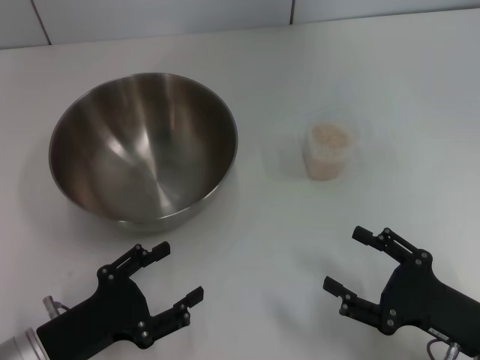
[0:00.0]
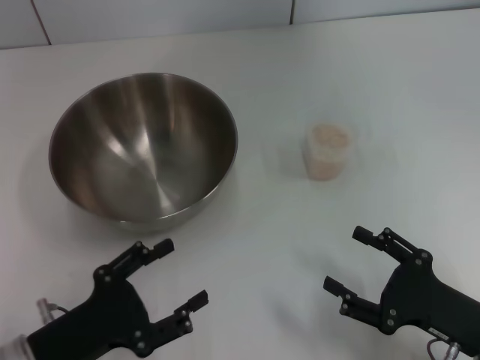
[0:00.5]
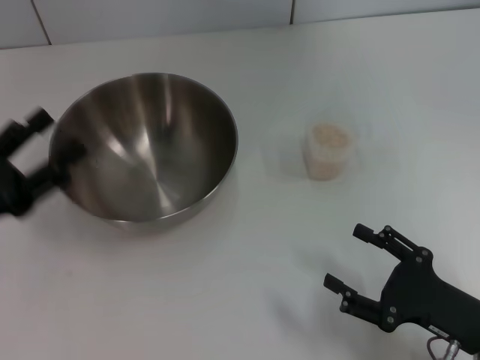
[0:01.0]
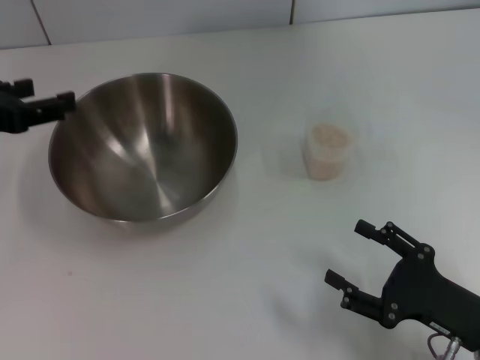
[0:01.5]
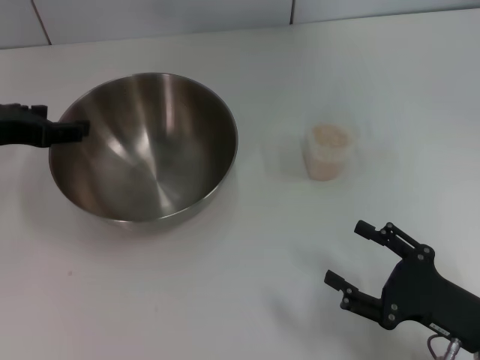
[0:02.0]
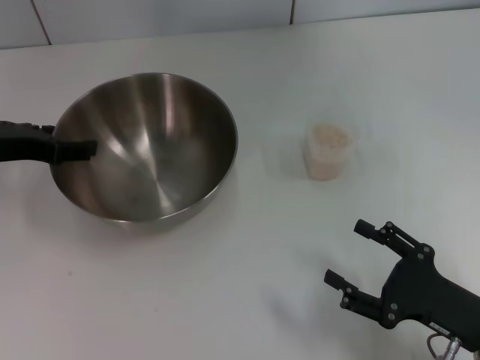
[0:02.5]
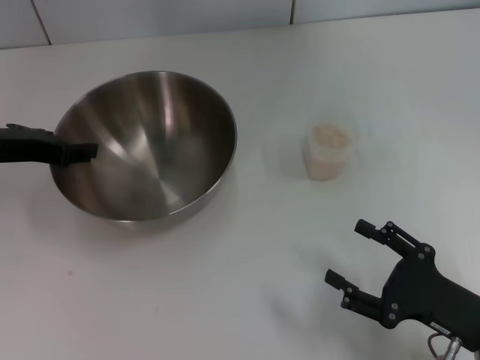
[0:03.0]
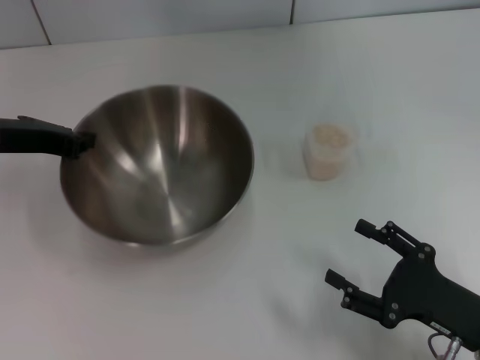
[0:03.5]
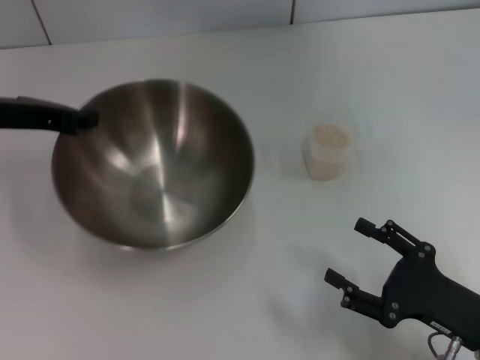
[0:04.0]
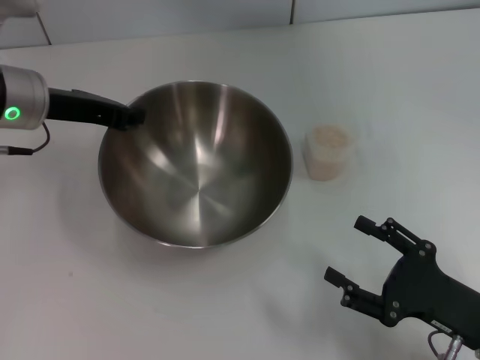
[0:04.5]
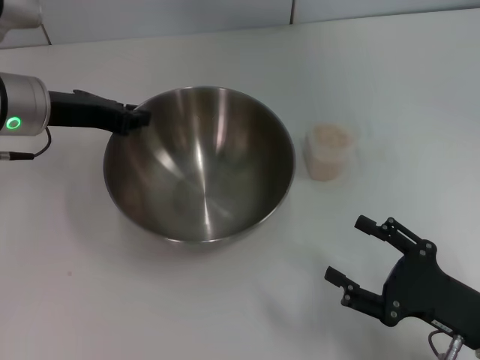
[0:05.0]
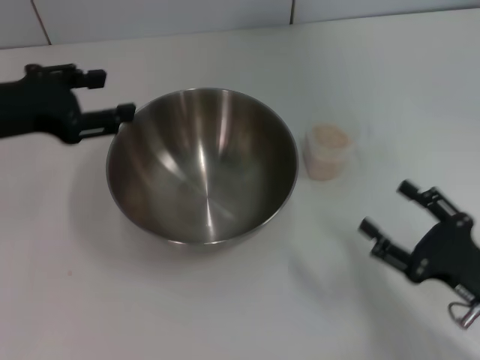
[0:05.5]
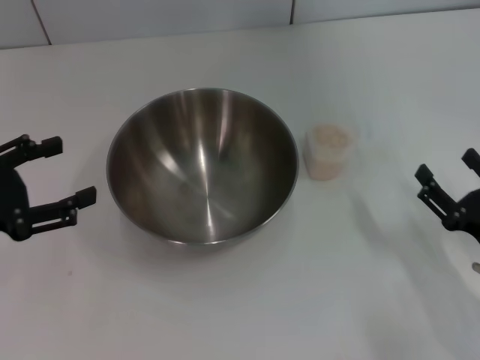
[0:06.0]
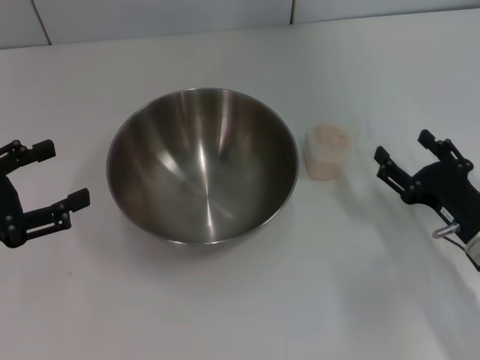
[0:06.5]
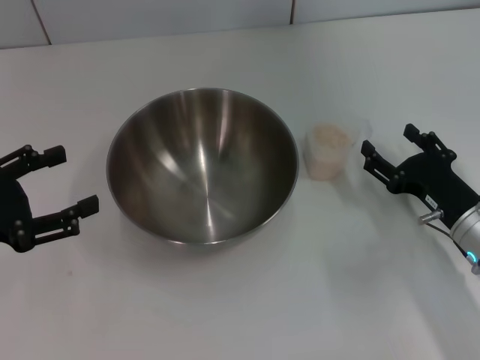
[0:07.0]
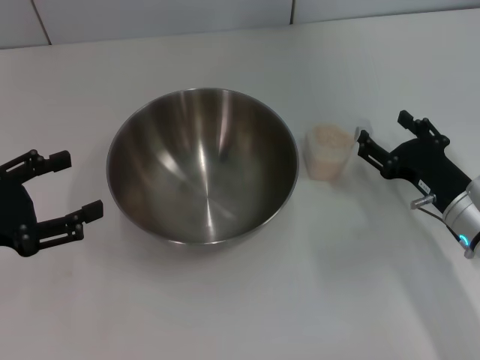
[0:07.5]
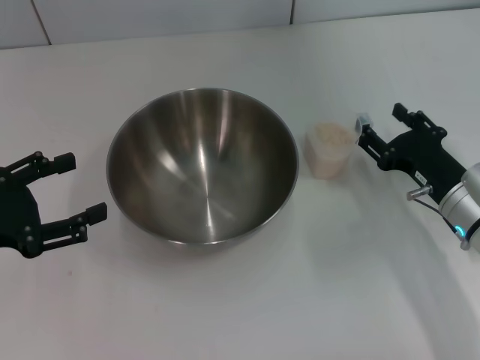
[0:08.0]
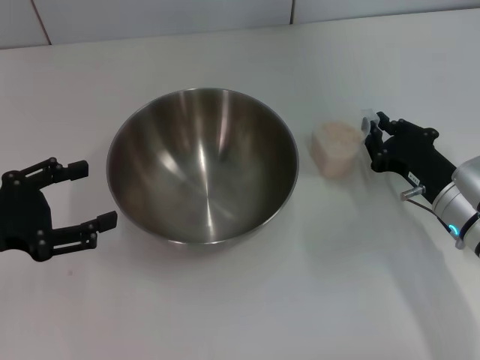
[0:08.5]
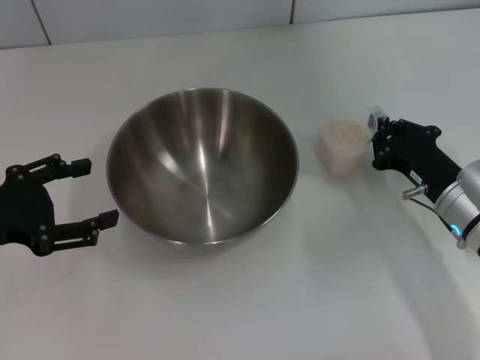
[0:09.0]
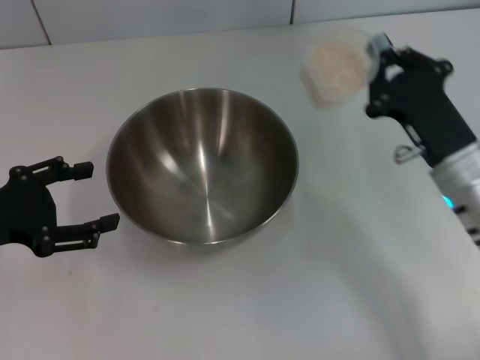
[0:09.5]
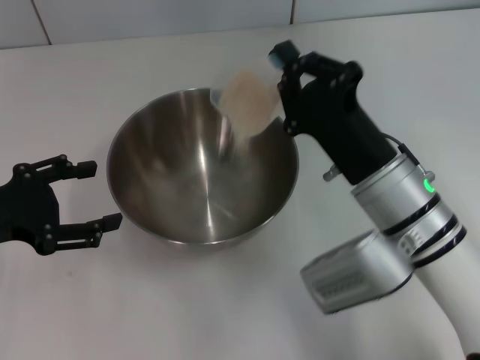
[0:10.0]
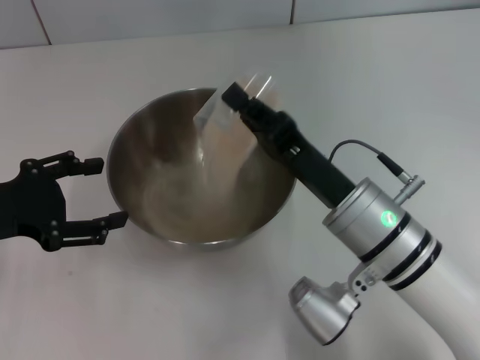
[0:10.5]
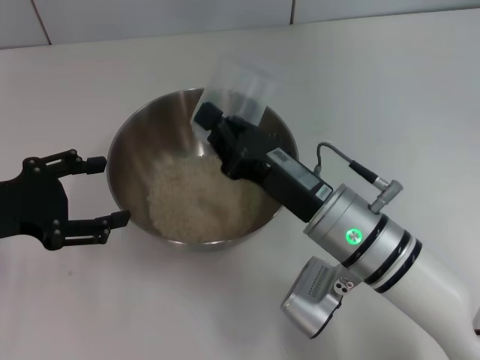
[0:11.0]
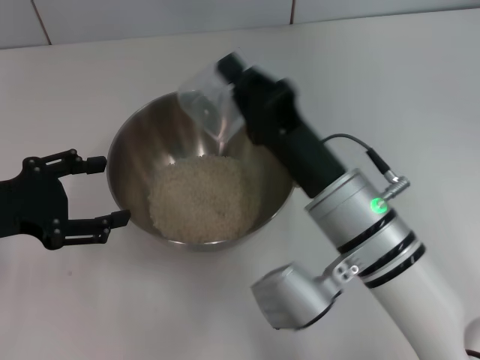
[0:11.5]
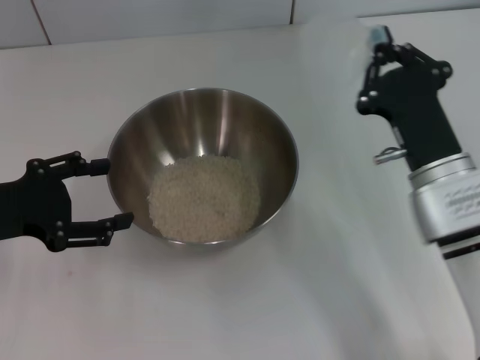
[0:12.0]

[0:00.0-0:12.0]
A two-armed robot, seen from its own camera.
Task of the whole recording: Place the bowl in the middle of the table with one hand and pour the rice from the grain cup into it with the other hand.
Step, 0:00.0 to 0:03.5: Pick up the bowl with the left gripper.
Step, 0:04.5 to 0:05.0: Place the bowl in the center of view with the left gripper.
Step, 0:05.5 to 0:09.0: Pick up the cup with rice in it with the right gripper.
Step, 0:09.5 to 0:11.5: Pour the rice from the cup into the bowl with the right gripper.
0:00.0 to 0:02.0: The left gripper travels forward and upward by about 25 cm.
0:02.0 to 0:04.0: The left gripper closes its fingers.
0:04.0 to 0:06.0: The left gripper moves backward and to the left, approximately 15 cm, and opens its fingers.
0:06.0 to 0:08.0: The right gripper travels forward by approximately 10 cm.
0:08.0 to 0:10.0: The right gripper is displaced to the left and upward by approximately 15 cm, and closes up.

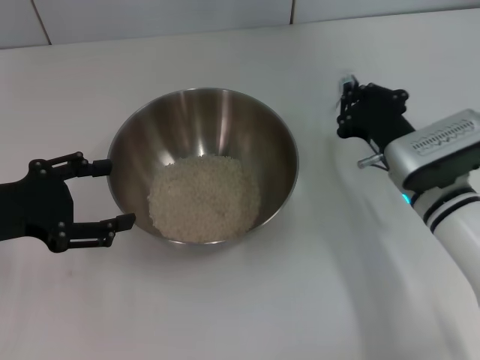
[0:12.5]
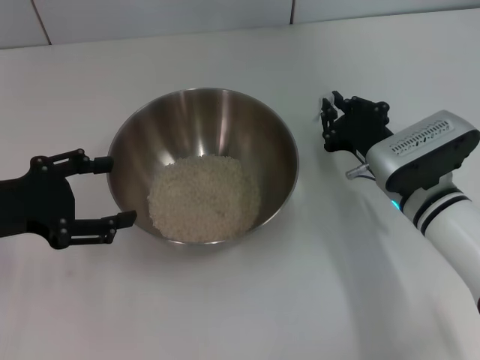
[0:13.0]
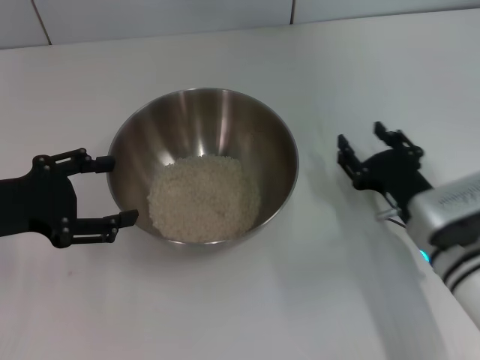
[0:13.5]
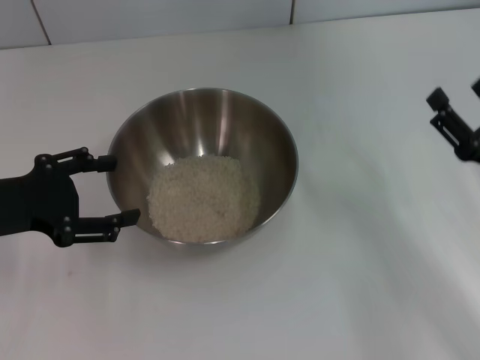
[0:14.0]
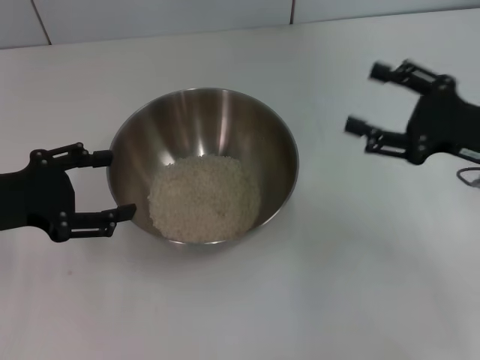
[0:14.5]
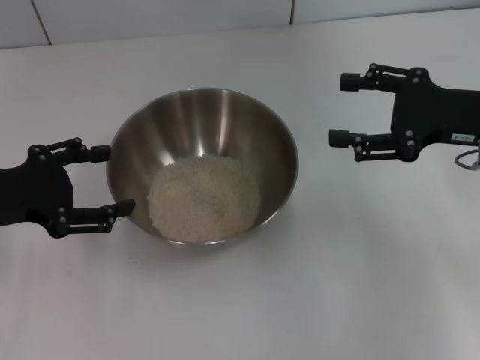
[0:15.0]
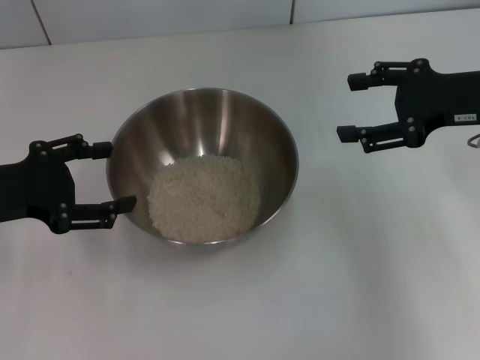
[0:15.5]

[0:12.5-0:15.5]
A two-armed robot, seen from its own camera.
Task of the whole recording: Place the bowl in the middle of the table with one hand and pour the rice from the grain cup into it with the other hand.
0:12.5 to 0:14.0: The right gripper is displaced to the right and backward by approximately 15 cm, and opens up.
0:14.0 to 0:15.5: The right gripper travels upward and forward by about 15 cm.

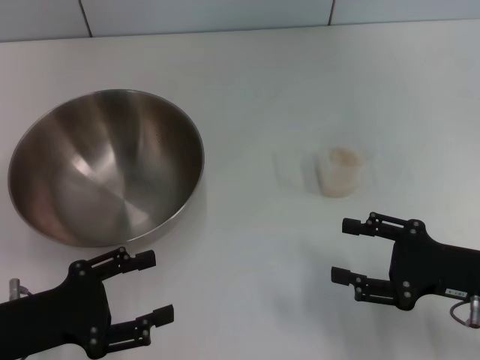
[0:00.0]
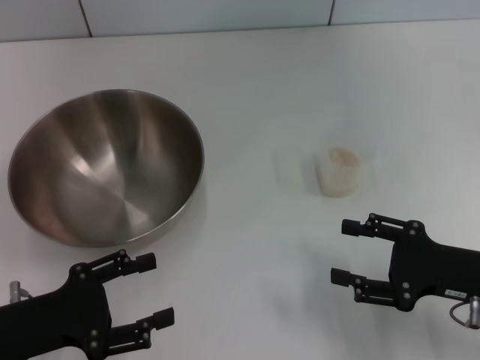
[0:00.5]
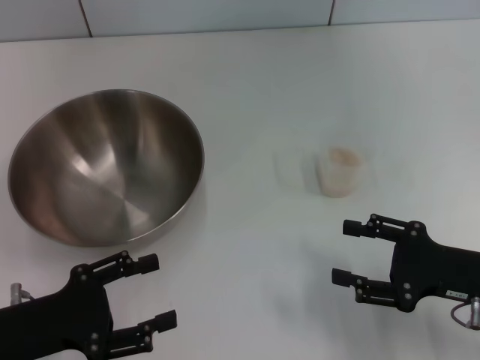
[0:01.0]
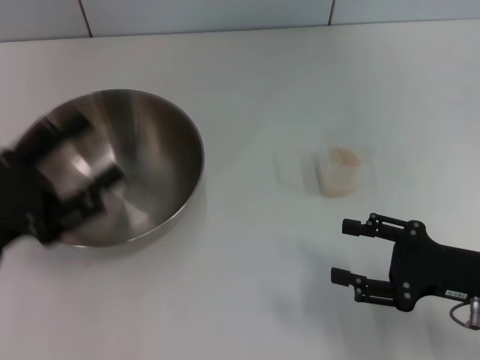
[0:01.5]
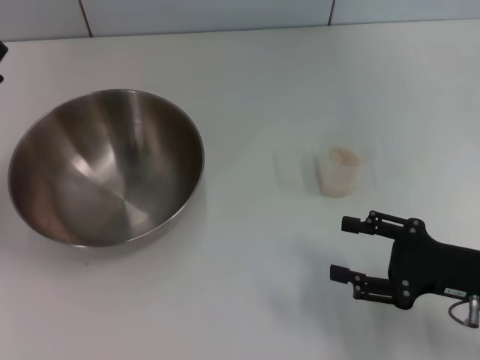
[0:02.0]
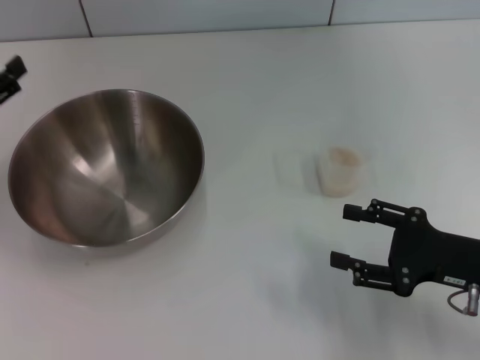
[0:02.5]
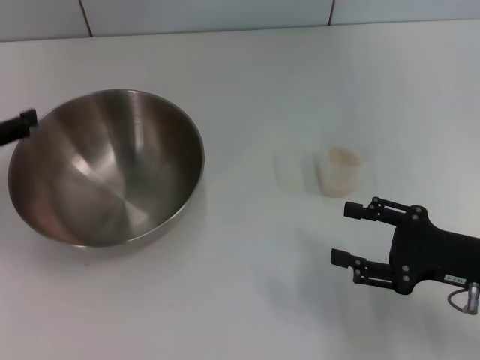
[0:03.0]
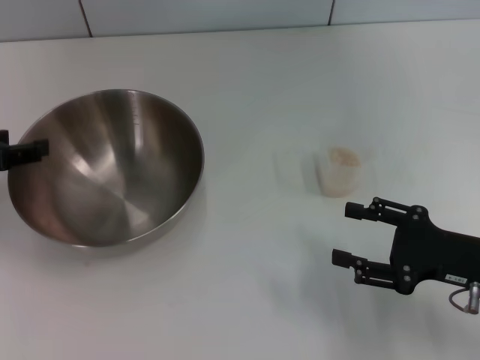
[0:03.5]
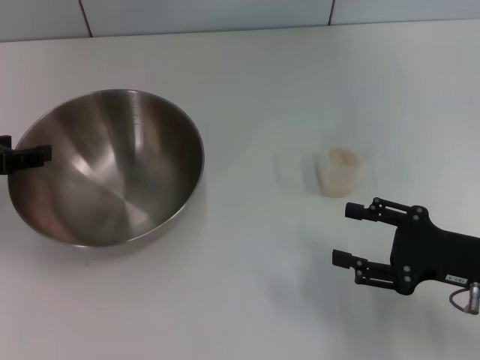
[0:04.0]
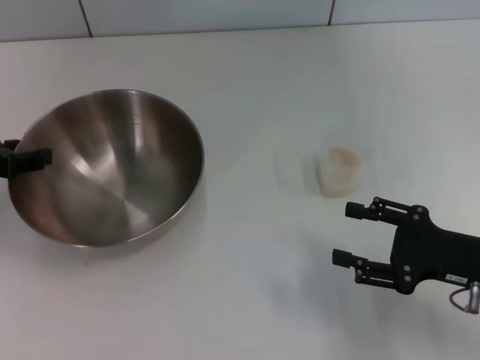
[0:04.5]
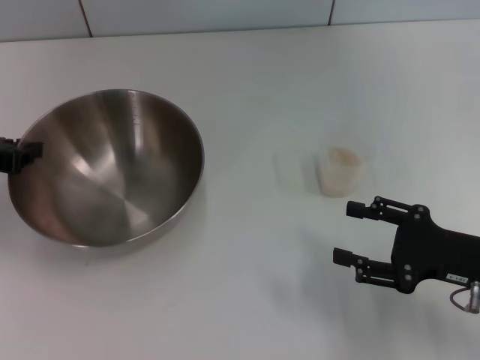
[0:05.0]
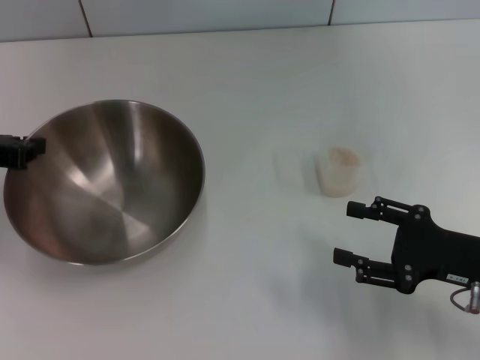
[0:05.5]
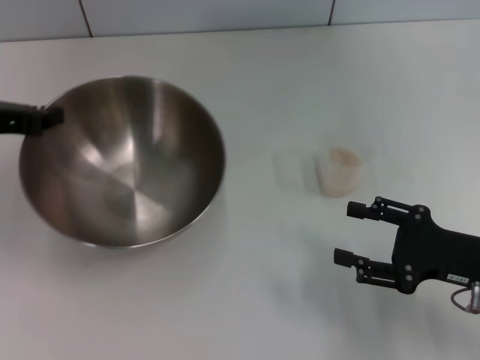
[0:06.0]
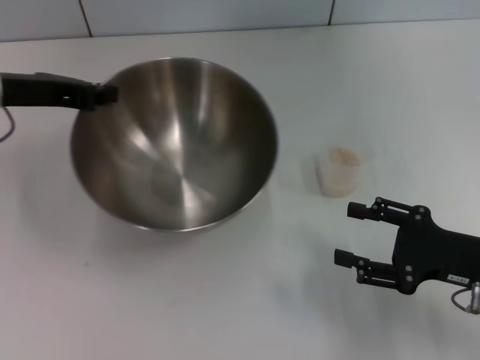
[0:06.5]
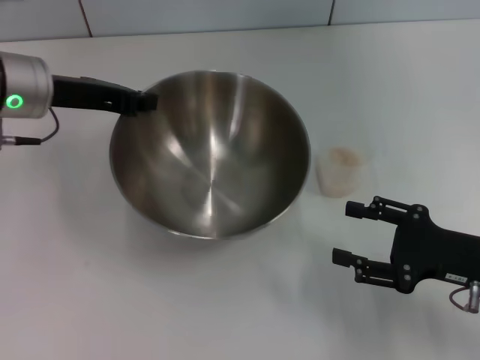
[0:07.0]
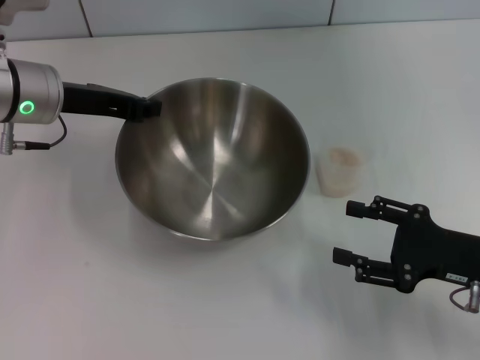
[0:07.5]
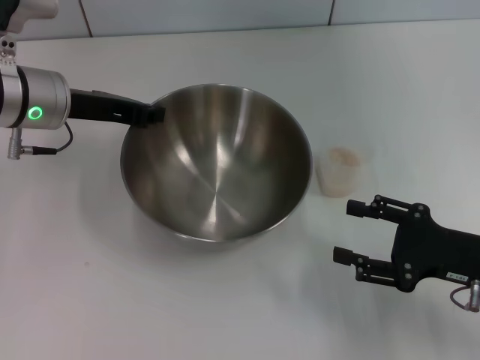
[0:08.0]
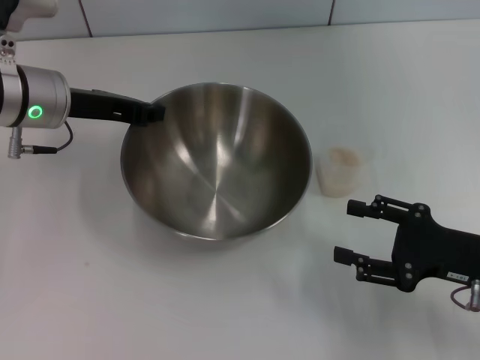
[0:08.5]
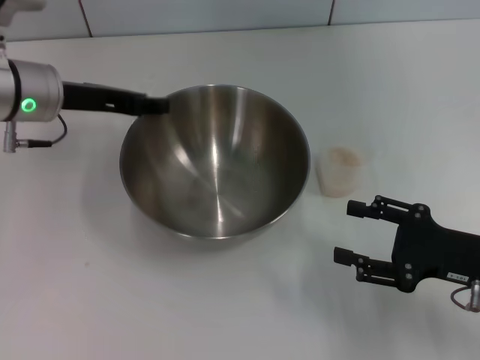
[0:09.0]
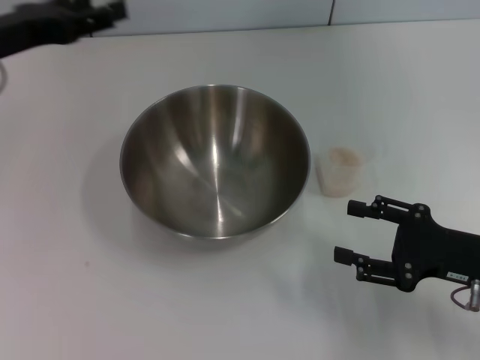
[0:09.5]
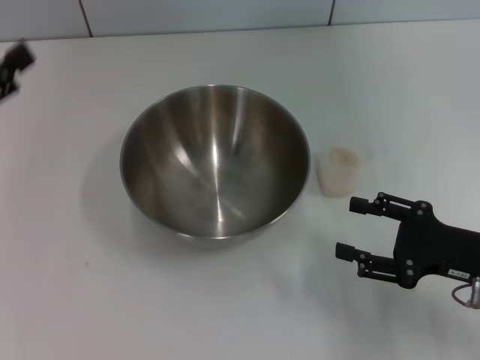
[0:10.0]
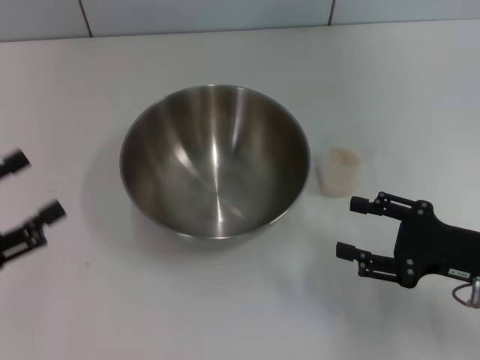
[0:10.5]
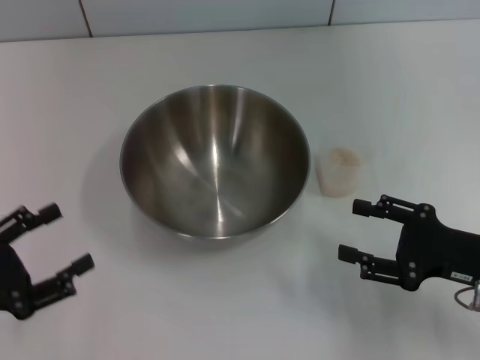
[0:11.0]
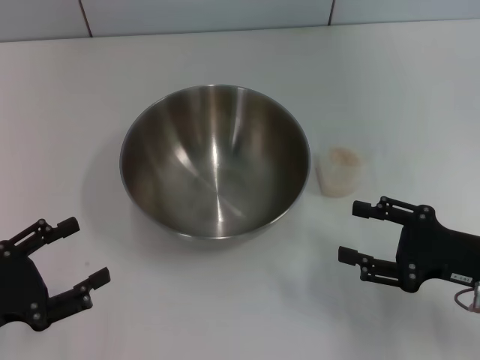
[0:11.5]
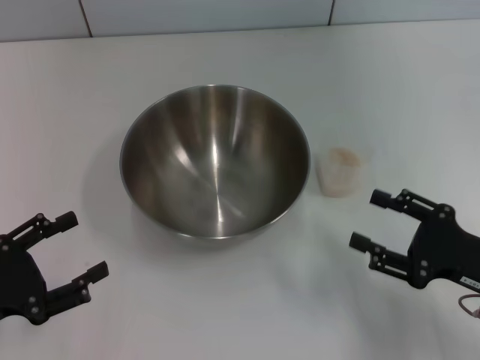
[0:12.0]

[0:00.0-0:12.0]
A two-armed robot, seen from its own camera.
Task of the whole recording: Place the bowl in the middle of the table with one hand and pour the rice from the grain cup into it with the other hand.
Step, 0:00.0 to 0:06.0: Pick up the bowl with the left gripper.
Step, 0:06.5 to 0:09.0: Place the bowl in the center of view with the left gripper.
0:00.0 to 0:02.0: The left gripper is displaced forward and upward by approximately 10 cm.
0:02.0 to 0:04.0: The left gripper heads forward, covering some 5 cm.
0:04.0 to 0:06.0: The left gripper closes up.
0:06.0 to 0:08.0: The left gripper is displaced to the right and forward by roughly 10 cm.
0:08.0 to 0:10.0: The left gripper heads to the left and backward, covering some 20 cm, and opens up.
0:10.0 to 0:12.0: The left gripper moves downward and backward, roughly 15 cm.
